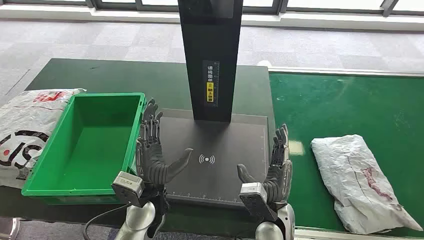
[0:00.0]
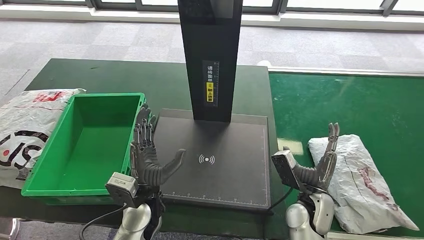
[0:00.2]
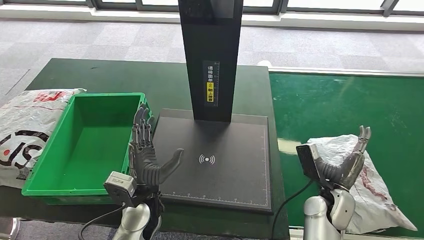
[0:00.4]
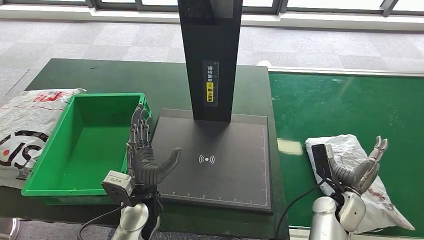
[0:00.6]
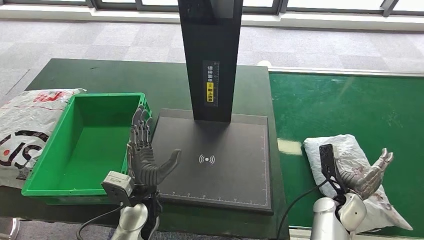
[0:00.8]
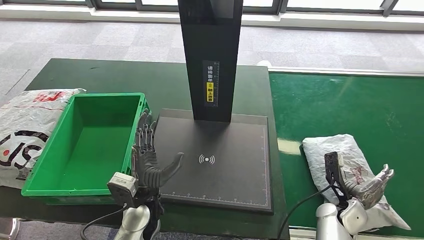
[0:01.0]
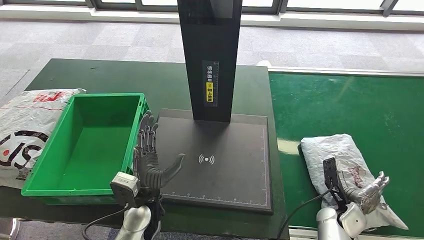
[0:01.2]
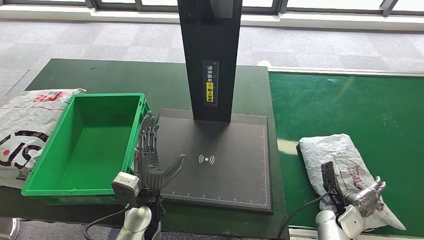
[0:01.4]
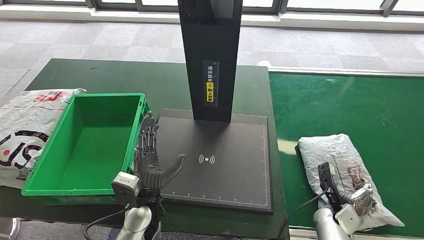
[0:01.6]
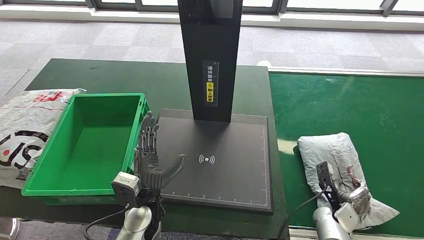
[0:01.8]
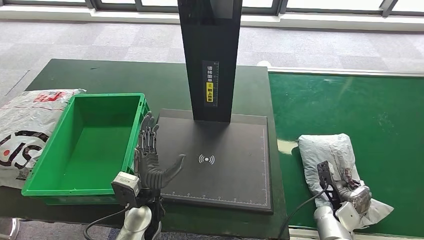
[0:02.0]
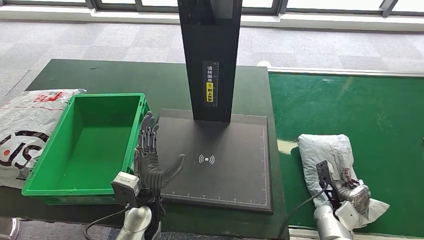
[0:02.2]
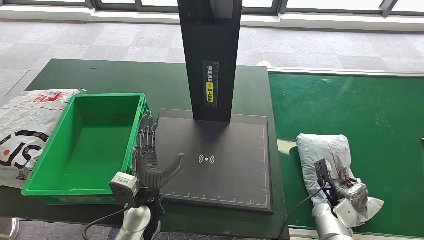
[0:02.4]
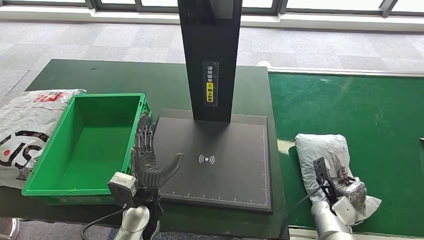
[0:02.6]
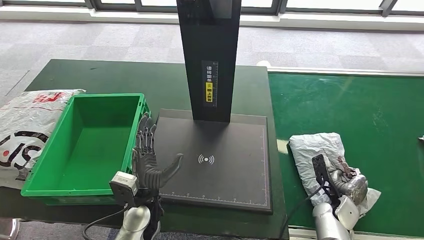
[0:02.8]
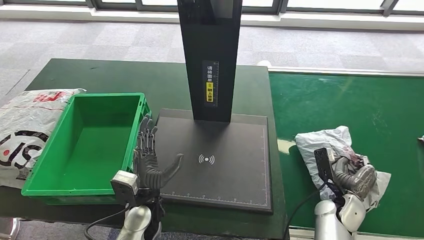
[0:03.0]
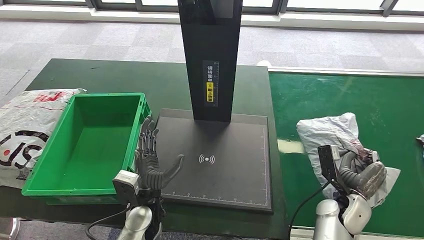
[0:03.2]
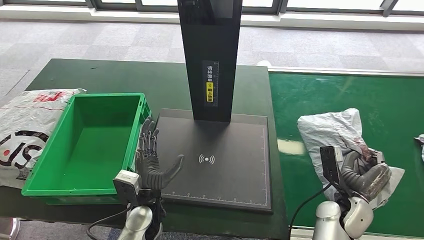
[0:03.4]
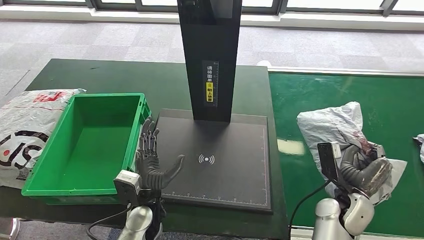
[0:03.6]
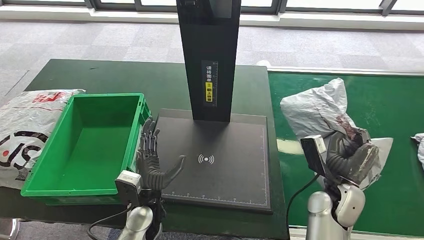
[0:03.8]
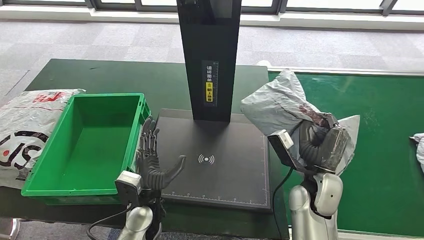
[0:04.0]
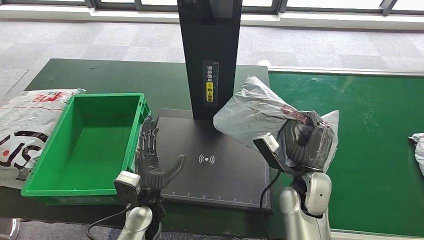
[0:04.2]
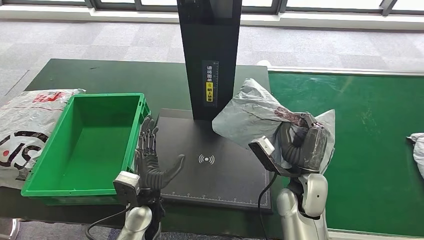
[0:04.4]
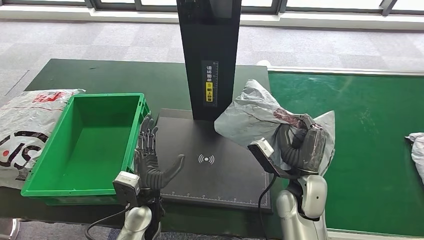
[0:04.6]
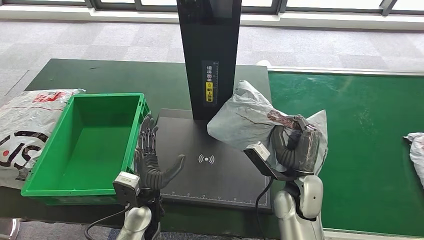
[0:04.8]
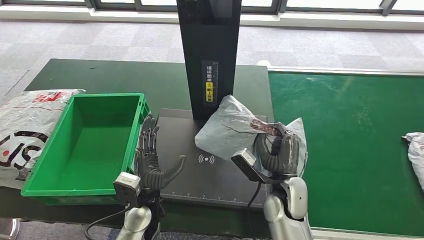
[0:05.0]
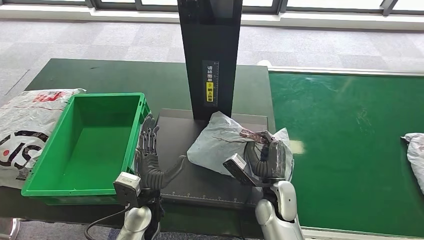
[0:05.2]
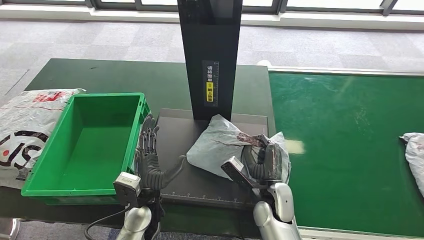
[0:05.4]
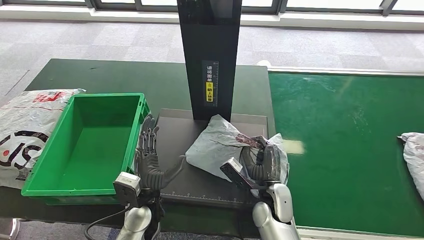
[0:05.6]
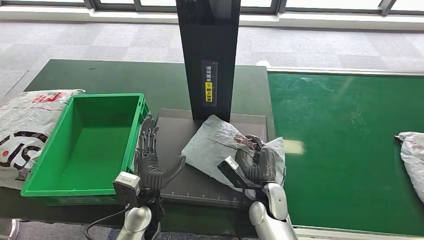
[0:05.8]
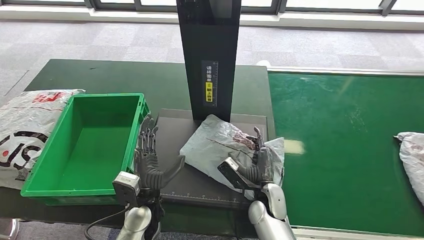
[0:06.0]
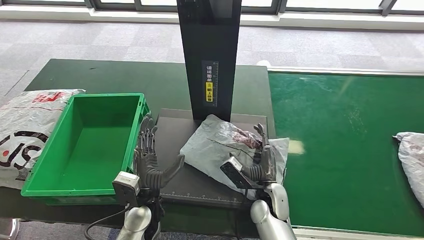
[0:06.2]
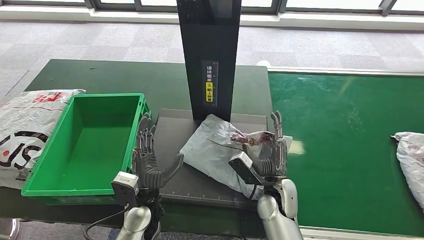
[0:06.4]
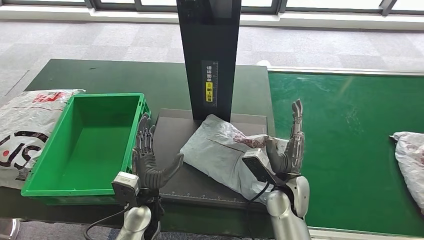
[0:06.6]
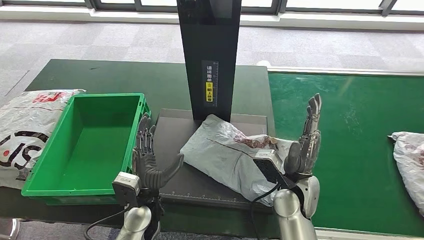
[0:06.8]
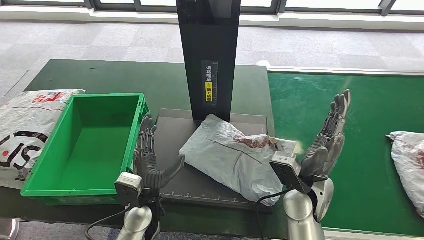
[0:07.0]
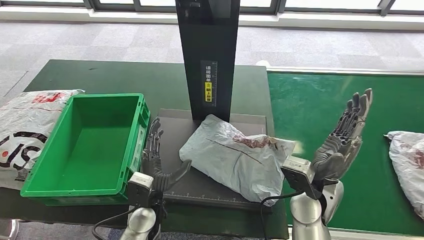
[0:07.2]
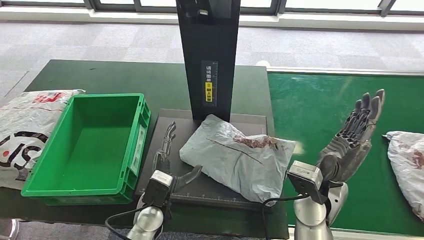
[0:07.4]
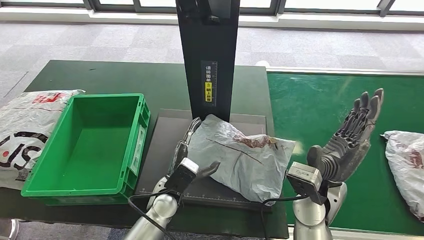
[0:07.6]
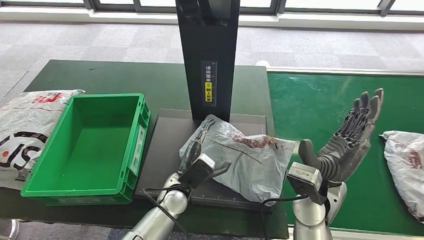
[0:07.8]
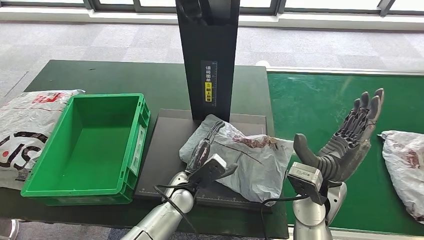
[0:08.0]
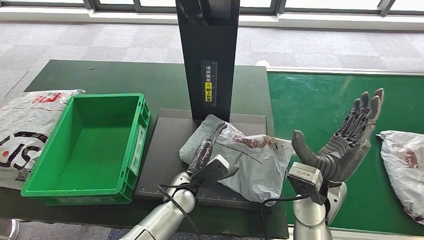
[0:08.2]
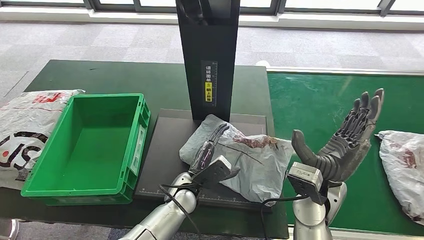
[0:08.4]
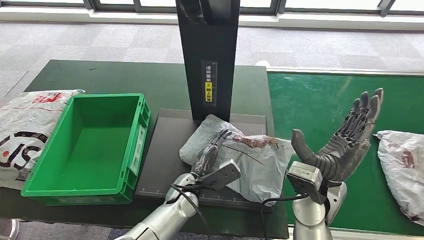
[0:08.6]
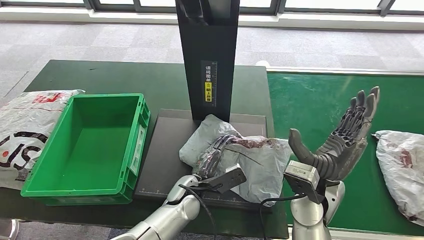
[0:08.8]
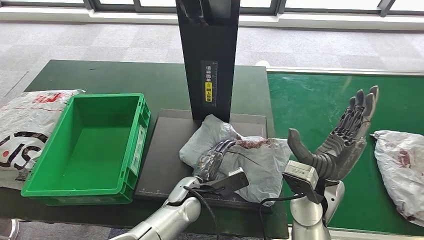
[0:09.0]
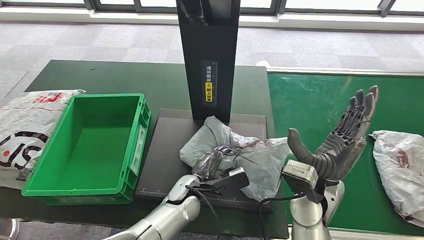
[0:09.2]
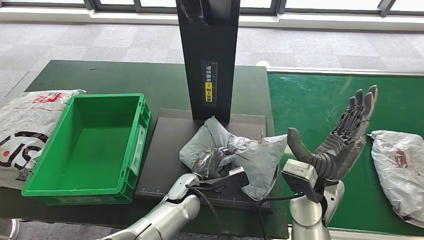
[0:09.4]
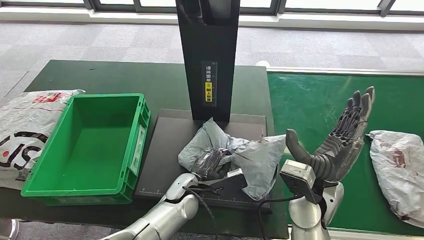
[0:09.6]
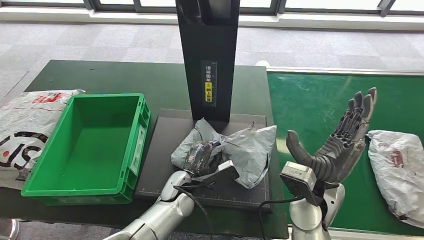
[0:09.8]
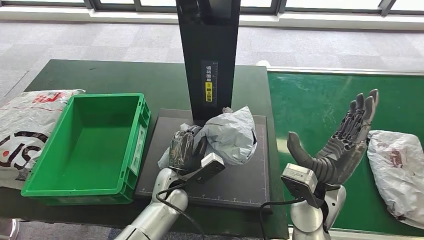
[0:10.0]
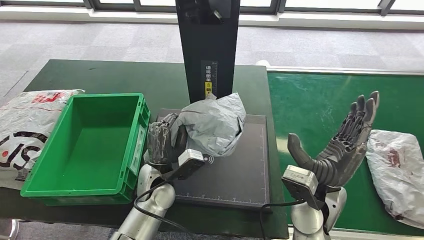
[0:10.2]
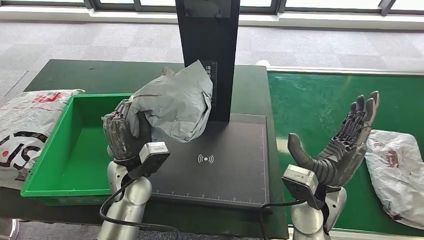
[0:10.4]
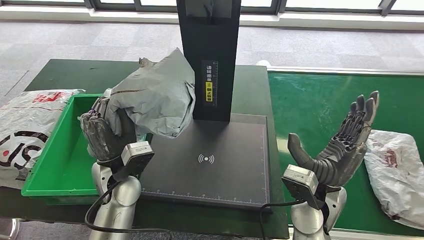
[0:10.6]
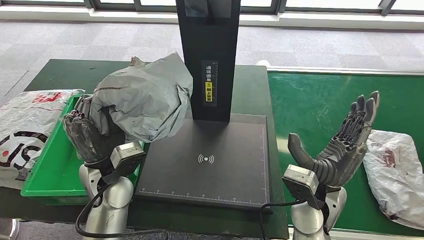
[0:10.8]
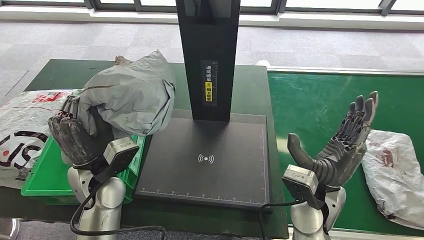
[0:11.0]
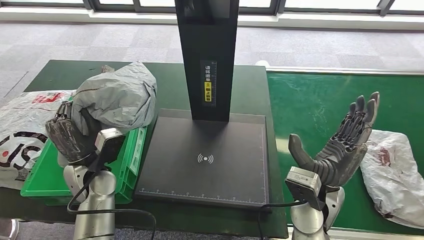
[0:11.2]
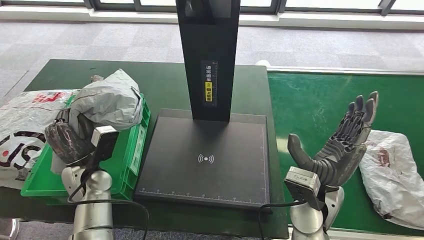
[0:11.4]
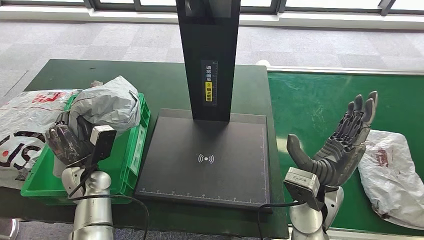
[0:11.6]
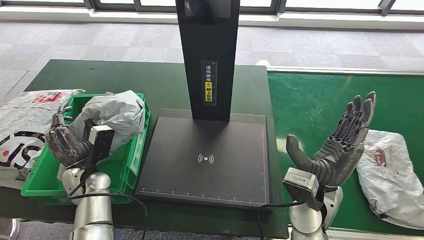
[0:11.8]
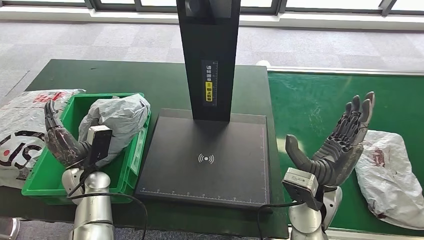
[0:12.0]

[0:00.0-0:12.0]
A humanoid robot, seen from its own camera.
Step, 0:00.0 to 0:03.8: Take the parcel off the conveyor belt.
Step, 0:04.0 to 0:07.0: Place the parcel onto the inbound machine.
Step, 0:07.2 to 0:10.6: Pick up the parcel from the inbound machine.
0:01.6 to 0:03.0: The right hand shifts some 5 cm upward.
0:03.0 to 0:04.4: The right hand heads to the left and upward, covering approximately 20 cm.
0:04.4 to 0:06.0: The right hand heads downward and to the left, covering roughly 10 cm.
0:07.6 to 0:09.0: The left hand is displaced to the right by some 5 cm.

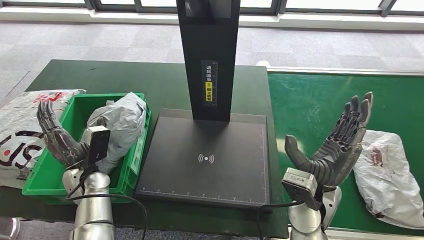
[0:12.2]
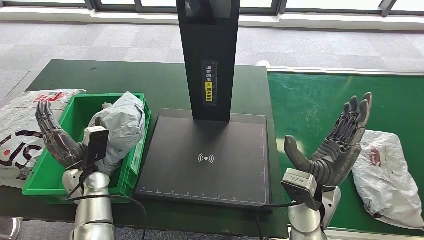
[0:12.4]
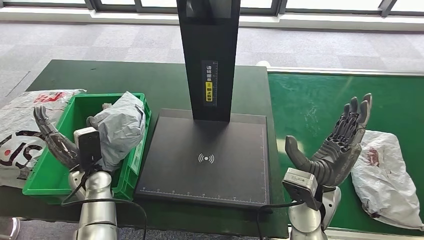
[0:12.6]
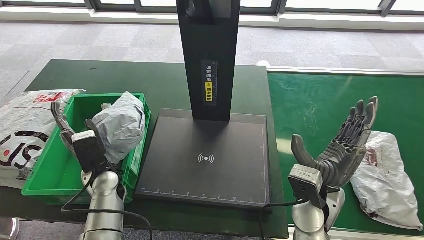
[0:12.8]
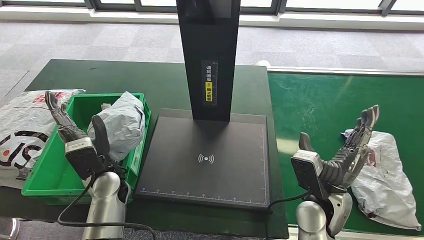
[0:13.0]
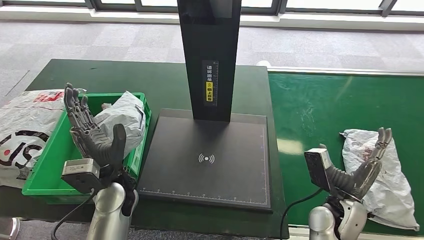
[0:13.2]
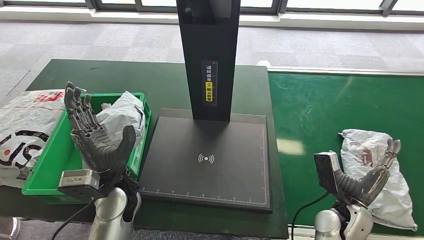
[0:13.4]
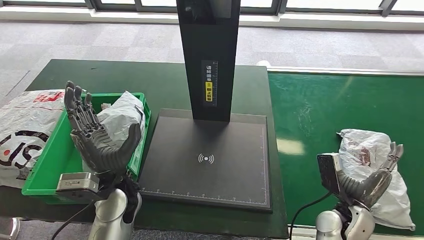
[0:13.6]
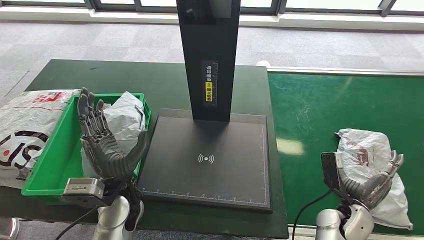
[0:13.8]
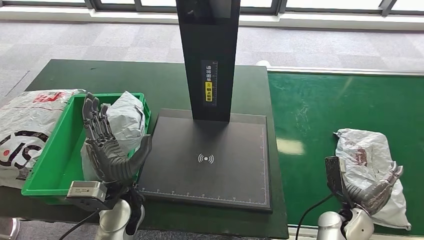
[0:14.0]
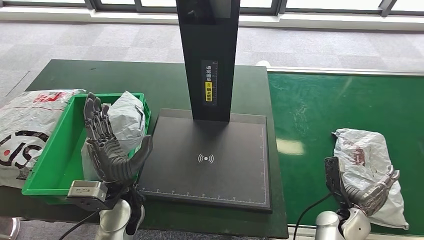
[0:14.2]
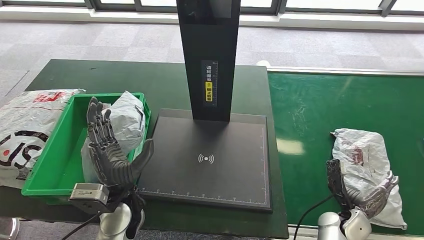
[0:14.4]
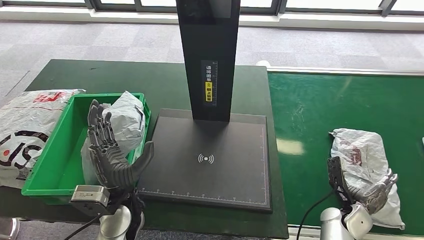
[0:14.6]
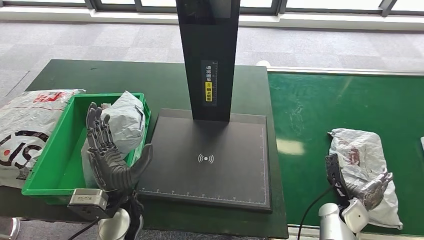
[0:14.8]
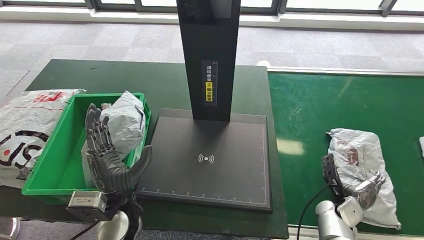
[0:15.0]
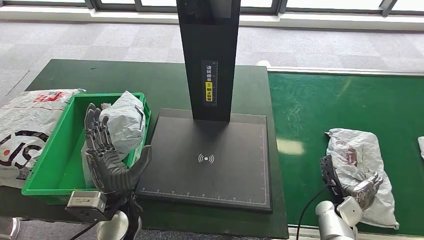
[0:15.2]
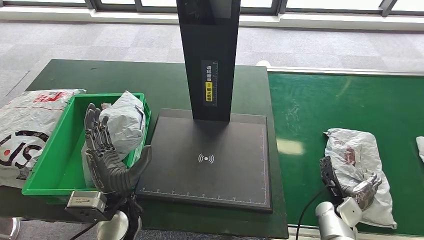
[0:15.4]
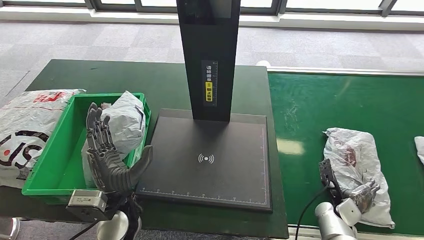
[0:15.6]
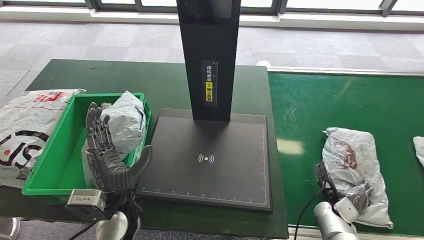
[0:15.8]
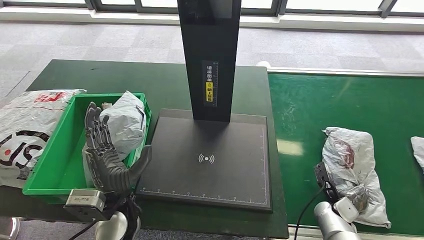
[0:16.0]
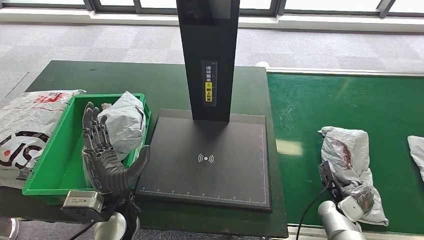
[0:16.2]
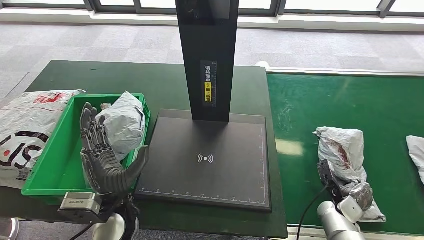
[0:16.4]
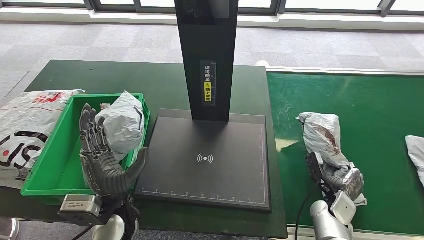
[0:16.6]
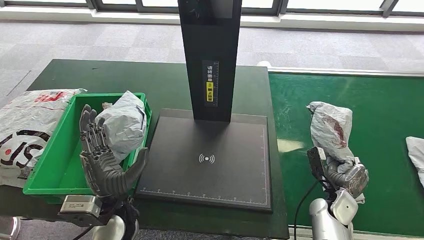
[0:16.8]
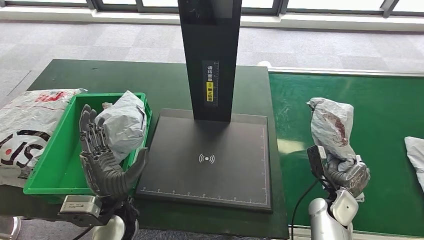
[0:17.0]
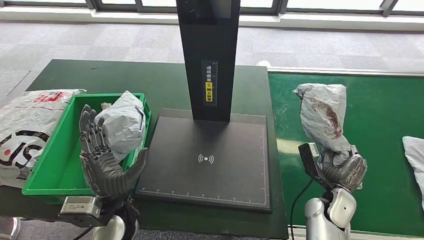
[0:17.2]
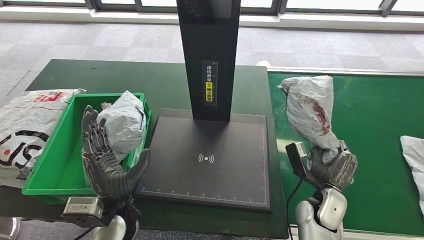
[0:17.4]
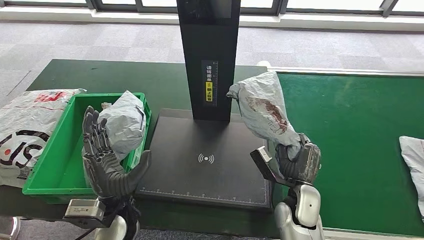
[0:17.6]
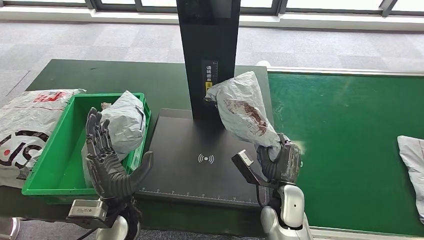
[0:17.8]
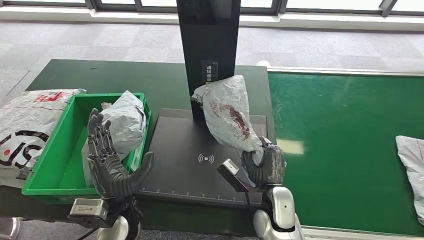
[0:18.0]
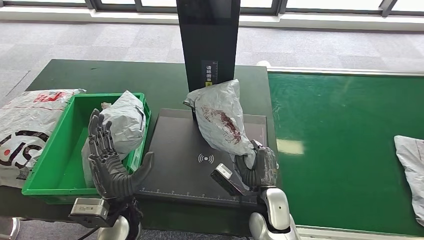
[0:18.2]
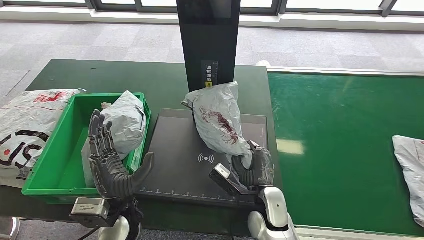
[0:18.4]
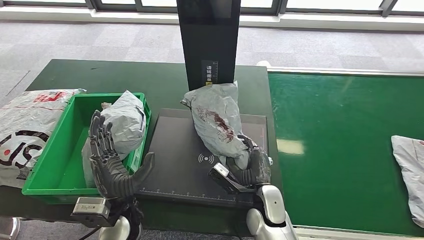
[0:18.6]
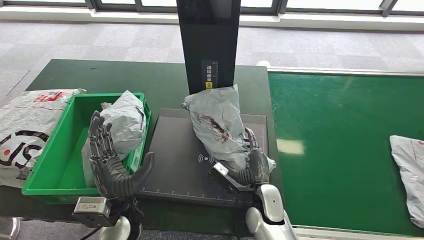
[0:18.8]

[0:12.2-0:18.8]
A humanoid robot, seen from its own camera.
Step, 0:12.2 to 0:14.0: Put the parcel inside the courier box.
Step, 0:14.8 to 0:17.4: Pick up the parcel from the conveyor belt.
0:12.2 to 0:13.8: The left hand travels to the right and upward by about 15 cm. Meanwhile the right hand travels to the right and downward by approximately 15 cm.
0:13.8 to 0:15.4: The right hand goes about 10 cm downward.
0:15.4 to 0:17.2: The right hand shifts some 10 cm upward and to the left.
0:17.2 to 0:18.8: The right hand is displaced to the left by approximately 20 cm.
